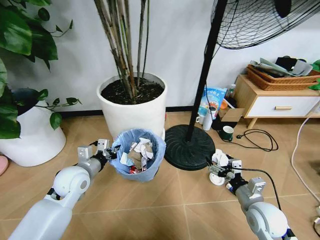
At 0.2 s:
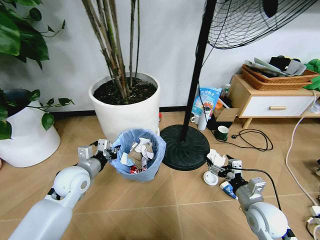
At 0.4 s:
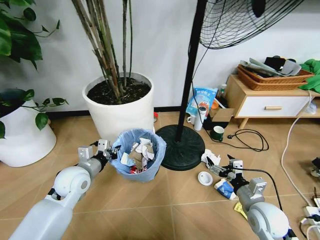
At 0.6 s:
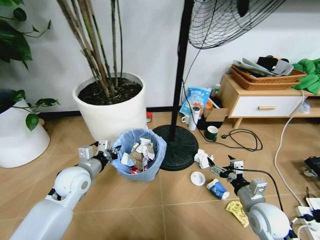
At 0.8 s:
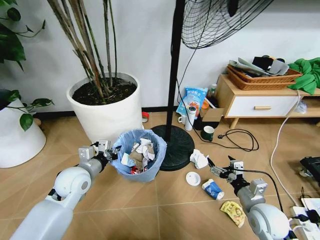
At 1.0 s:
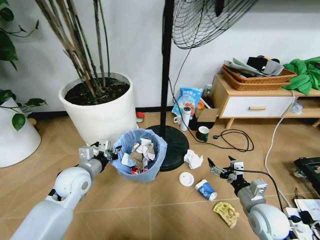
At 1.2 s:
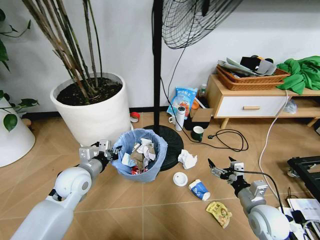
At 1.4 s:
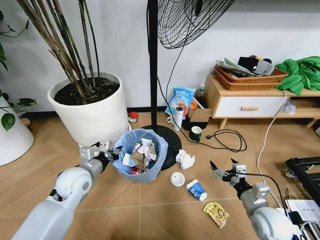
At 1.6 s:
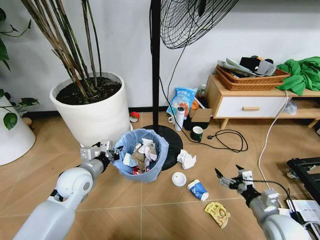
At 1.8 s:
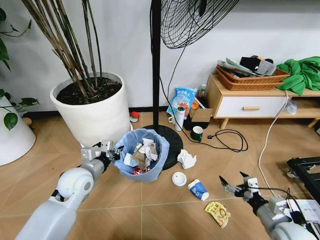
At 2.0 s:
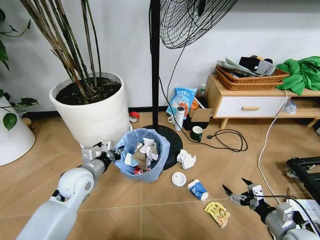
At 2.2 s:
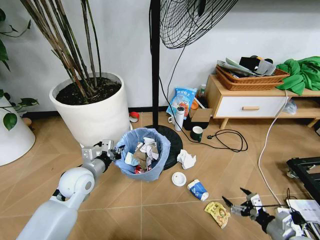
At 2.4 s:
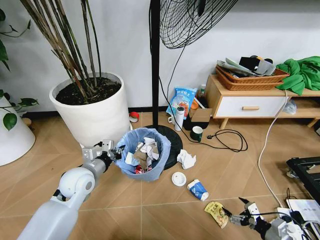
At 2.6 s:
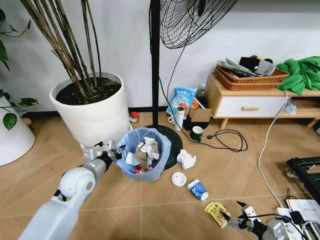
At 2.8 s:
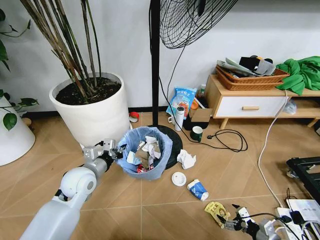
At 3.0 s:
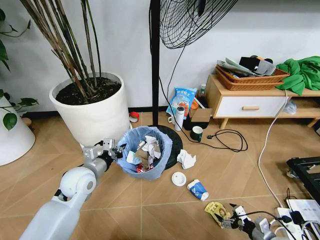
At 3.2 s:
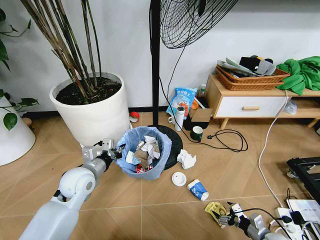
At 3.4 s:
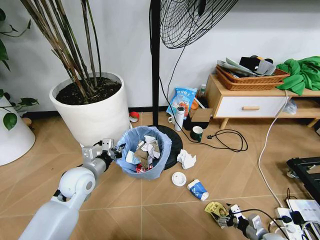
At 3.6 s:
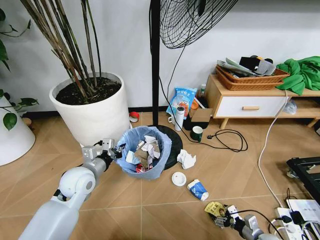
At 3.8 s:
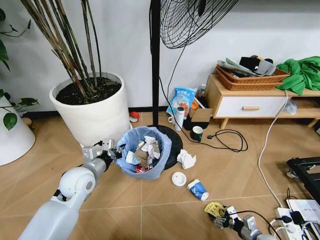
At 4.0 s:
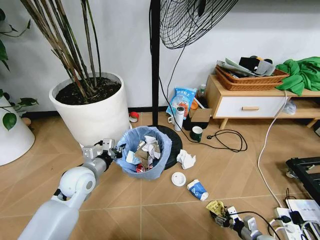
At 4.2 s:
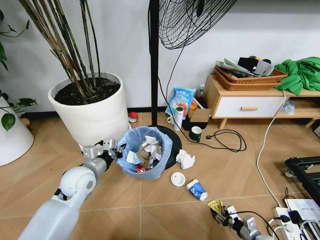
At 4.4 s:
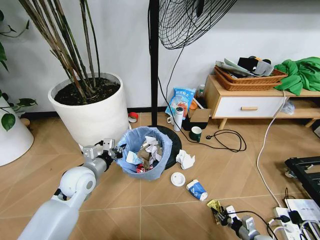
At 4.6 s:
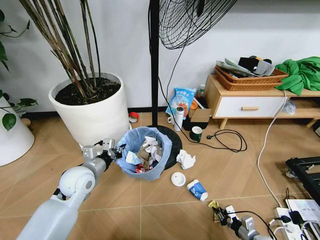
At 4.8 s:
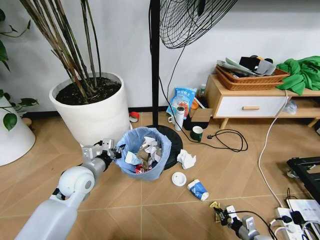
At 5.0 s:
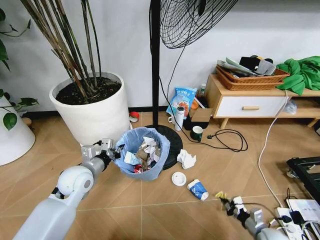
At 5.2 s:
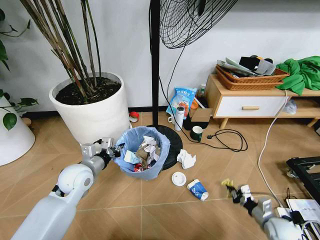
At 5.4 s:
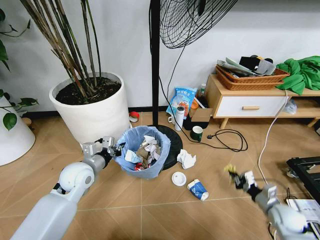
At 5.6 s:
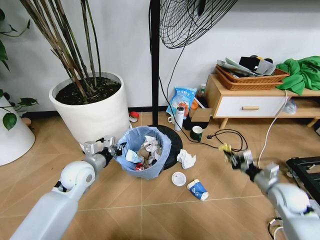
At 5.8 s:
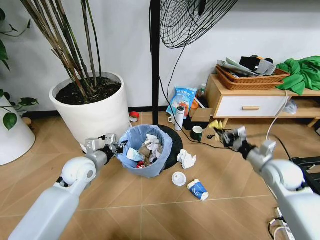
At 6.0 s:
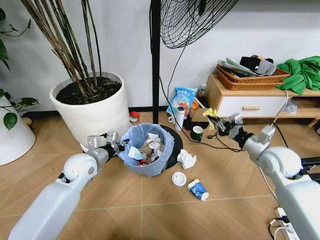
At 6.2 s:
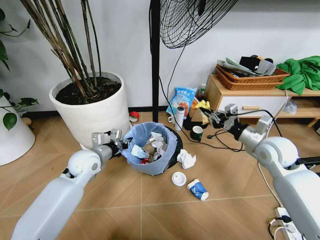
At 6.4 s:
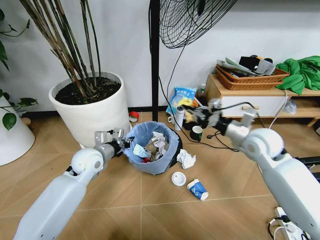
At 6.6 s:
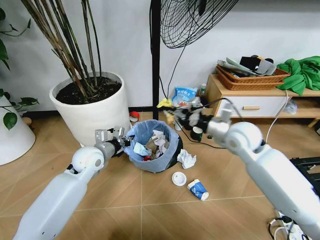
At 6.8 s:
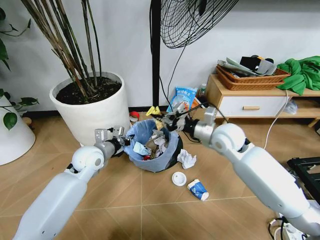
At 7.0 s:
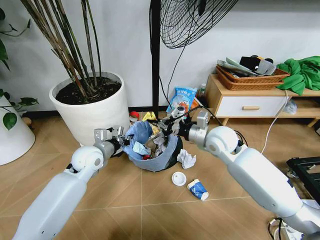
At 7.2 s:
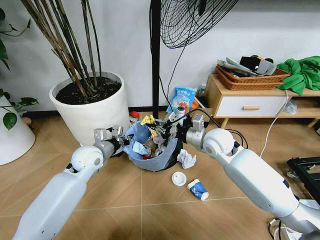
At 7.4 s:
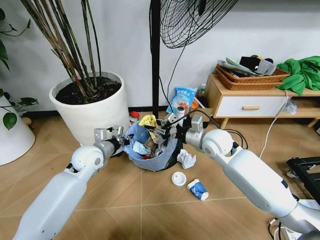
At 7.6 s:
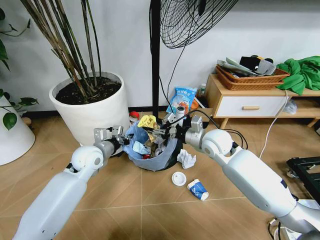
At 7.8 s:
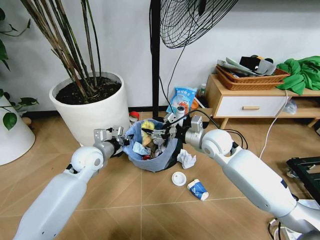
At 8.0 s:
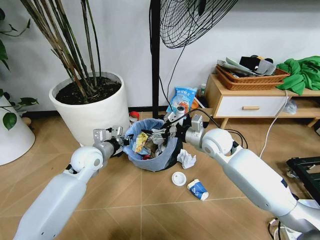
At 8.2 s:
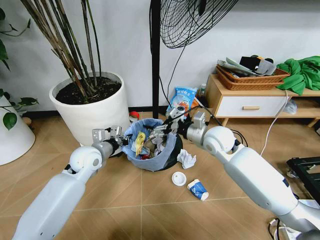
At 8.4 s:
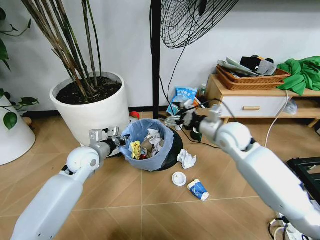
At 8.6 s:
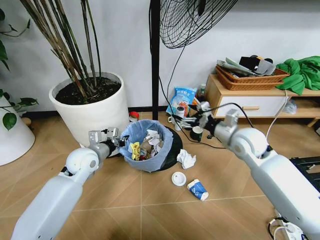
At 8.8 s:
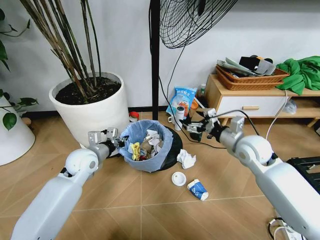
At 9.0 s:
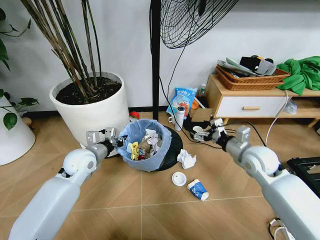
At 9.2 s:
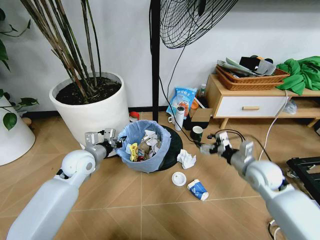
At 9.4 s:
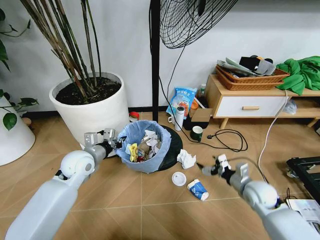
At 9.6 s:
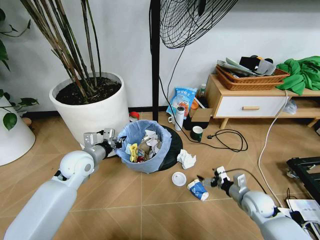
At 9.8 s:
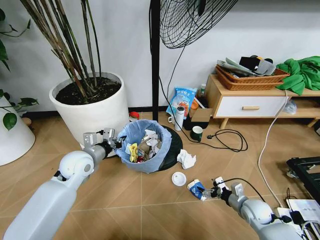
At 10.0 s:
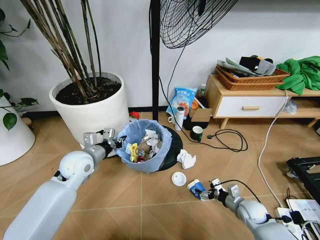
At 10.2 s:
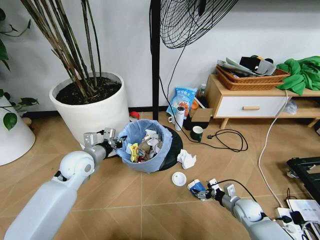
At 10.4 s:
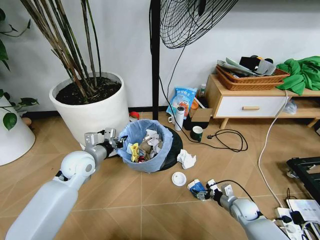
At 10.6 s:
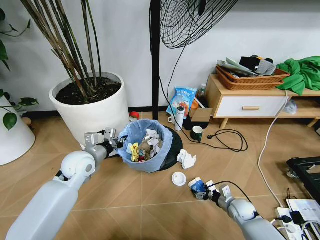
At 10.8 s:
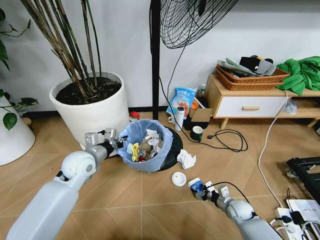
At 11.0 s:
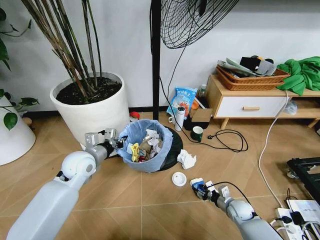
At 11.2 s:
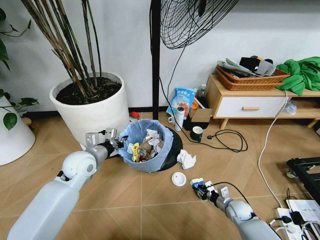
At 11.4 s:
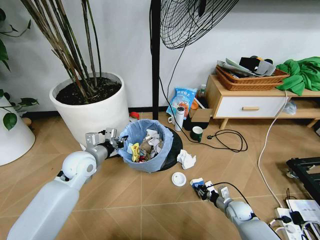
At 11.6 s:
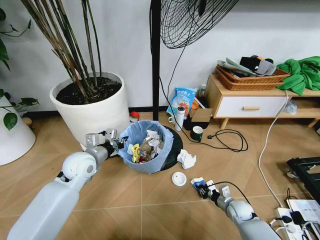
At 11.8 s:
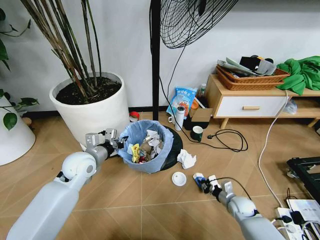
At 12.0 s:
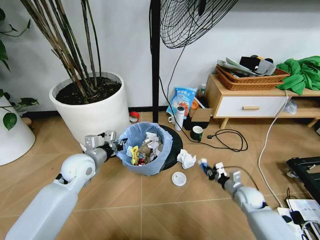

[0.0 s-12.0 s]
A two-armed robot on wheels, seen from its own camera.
Task of the whole recording: Pick up the trash bin and place the garbage on the floor into it.
1.6 to 3.0 s: The right gripper shifts some 15 cm downward and to the right.
3.0 to 4.4 s: The right gripper shifts approximately 5 cm downward, and closes.
4.4 to 6.0 s: The right gripper goes approximately 40 cm upward and forward.
6.0 to 7.6 s: The right gripper is displaced to the left by roughly 20 cm, and opens.
7.6 to 9.0 s: The right gripper travels to the right and backward by some 15 cm, and opens.
9.0 to 10.4 s: The right gripper travels downward by roughly 30 cm.
10.4 to 12.0 s: The right gripper is displaced upward by approximately 5 cm, and closes.

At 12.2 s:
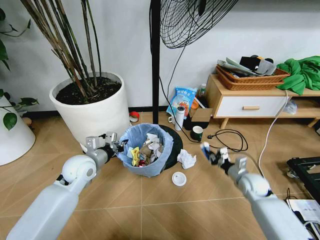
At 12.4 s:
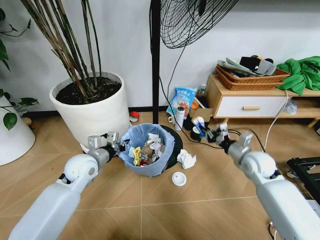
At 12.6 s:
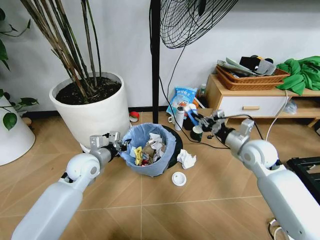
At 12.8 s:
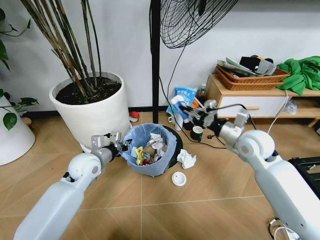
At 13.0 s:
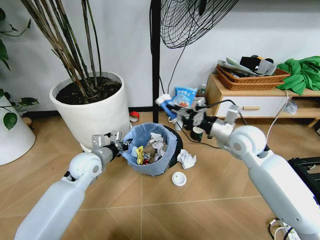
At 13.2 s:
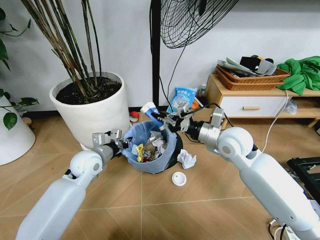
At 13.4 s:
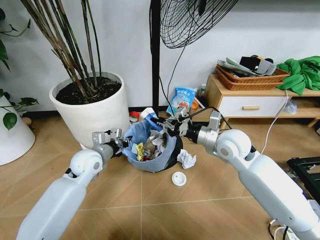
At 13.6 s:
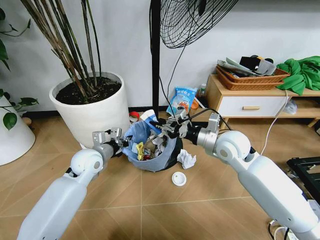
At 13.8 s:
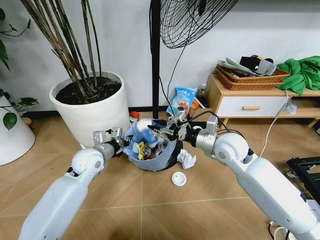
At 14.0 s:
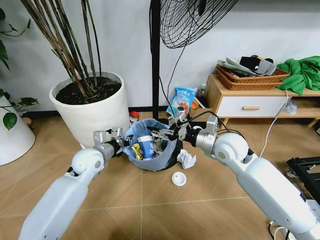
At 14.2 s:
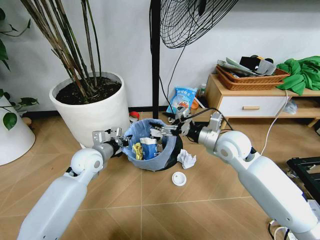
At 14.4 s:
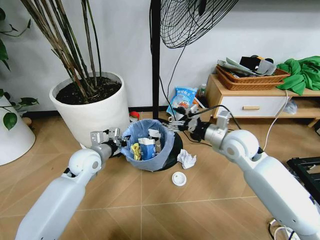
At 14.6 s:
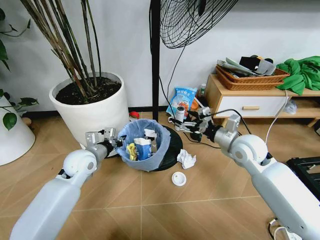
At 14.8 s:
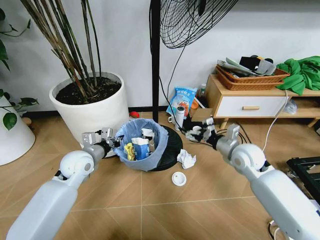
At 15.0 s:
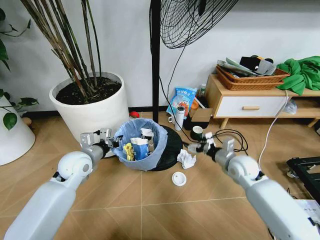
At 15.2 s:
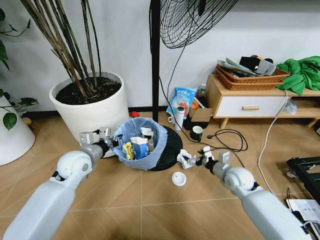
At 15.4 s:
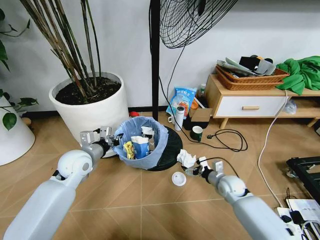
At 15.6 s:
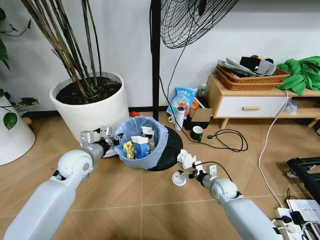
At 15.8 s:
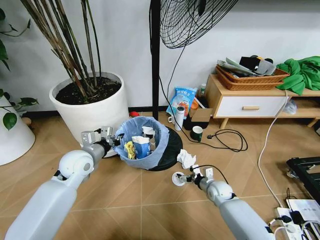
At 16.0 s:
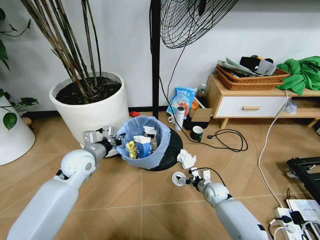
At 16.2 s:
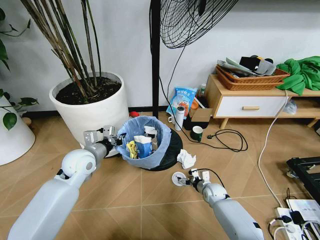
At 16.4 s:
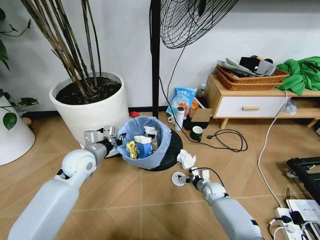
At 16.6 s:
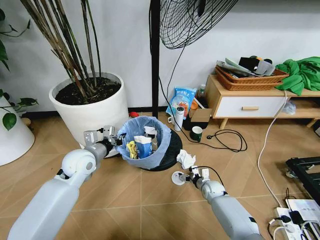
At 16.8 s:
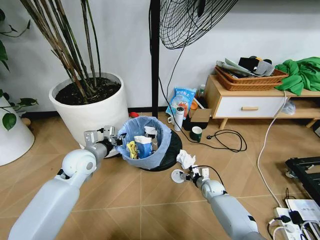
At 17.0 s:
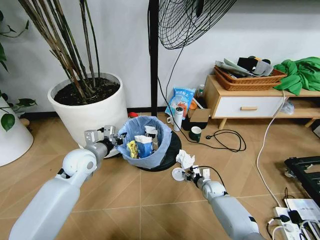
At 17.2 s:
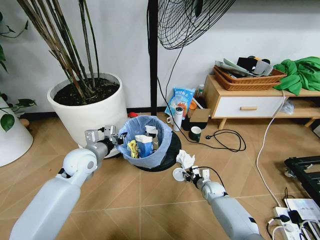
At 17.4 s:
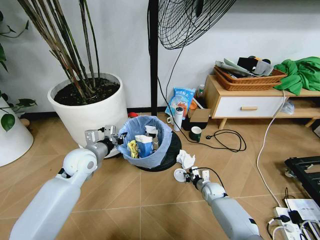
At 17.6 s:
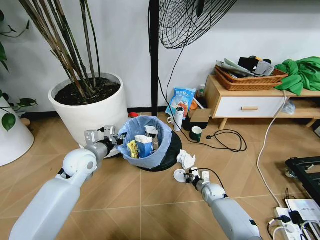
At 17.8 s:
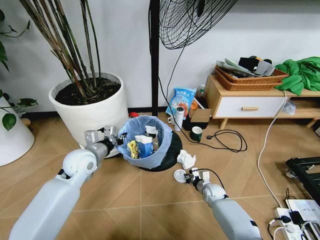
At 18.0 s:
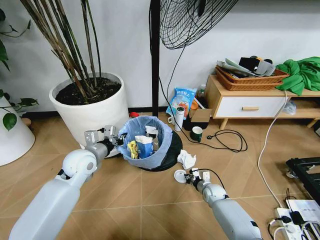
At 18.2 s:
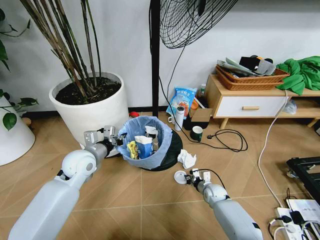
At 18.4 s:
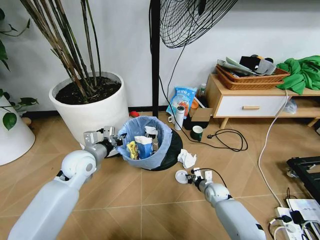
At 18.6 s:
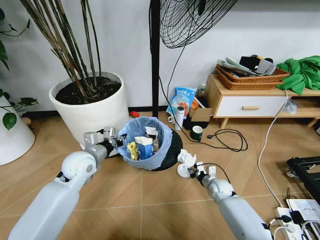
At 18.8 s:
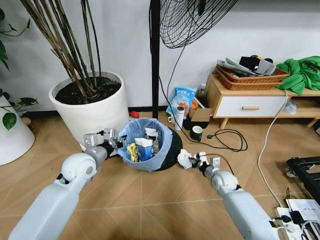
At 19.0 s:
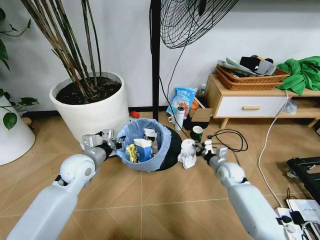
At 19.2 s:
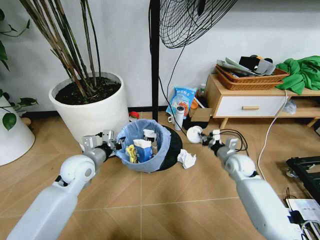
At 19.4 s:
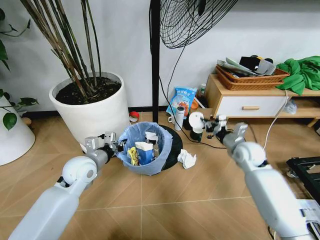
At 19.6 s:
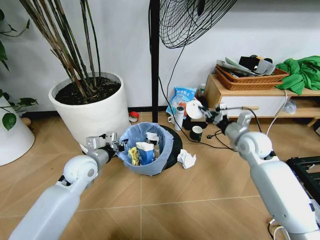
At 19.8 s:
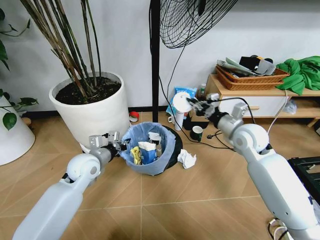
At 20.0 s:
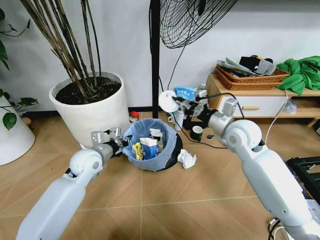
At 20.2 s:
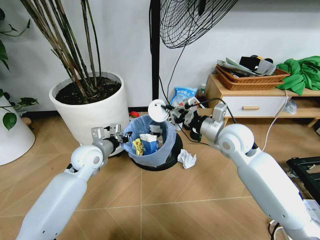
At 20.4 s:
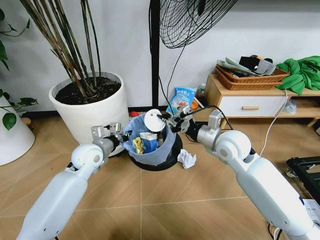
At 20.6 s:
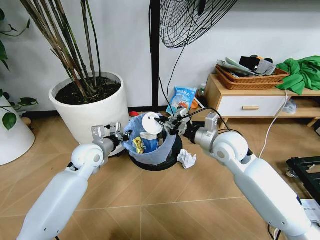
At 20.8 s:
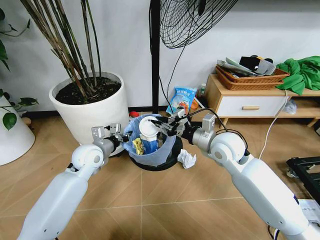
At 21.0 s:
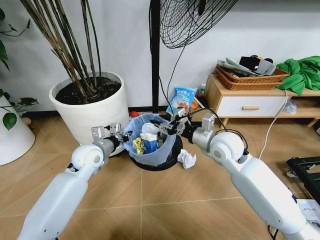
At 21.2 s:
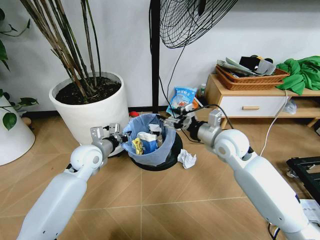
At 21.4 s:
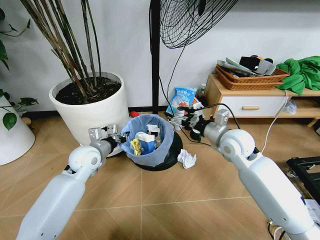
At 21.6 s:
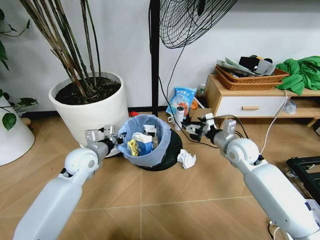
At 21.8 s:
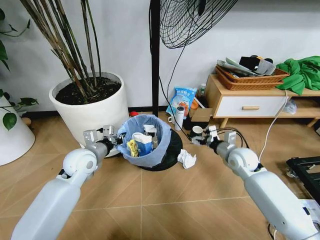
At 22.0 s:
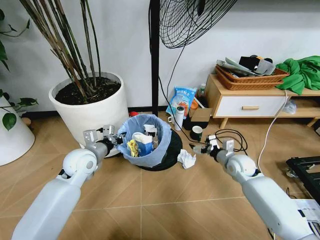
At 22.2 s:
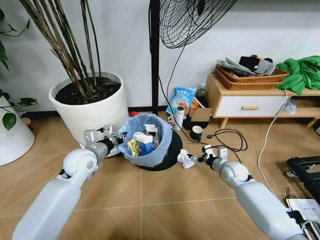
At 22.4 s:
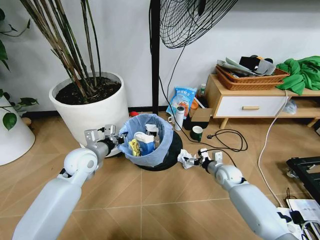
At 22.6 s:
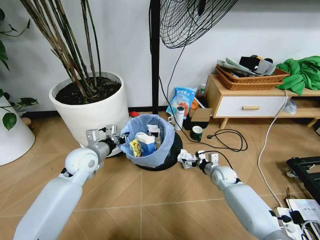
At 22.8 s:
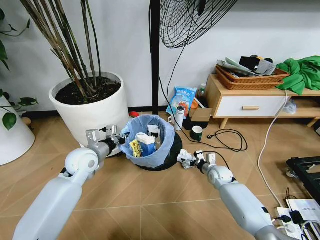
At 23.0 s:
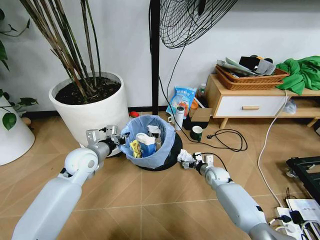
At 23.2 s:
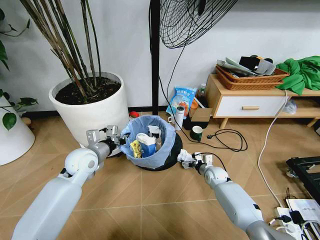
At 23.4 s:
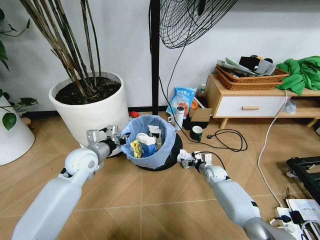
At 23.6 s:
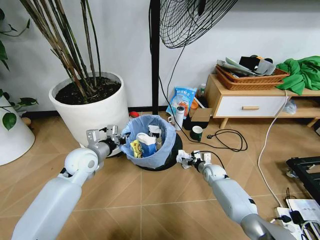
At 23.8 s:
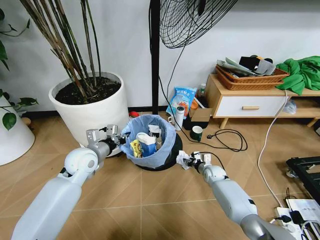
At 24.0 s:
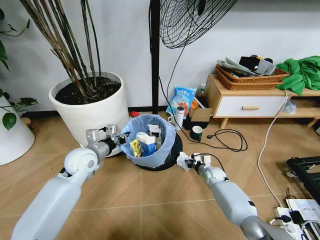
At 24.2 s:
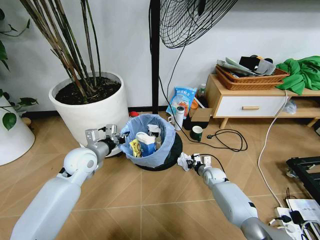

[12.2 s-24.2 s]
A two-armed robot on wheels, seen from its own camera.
Task of the whole recording: Pick up the trash bin and place the garbage on the floor into it.
12.2 to 13.8 s: The right gripper goes about 25 cm upward and to the left, and opens.
13.8 to 15.2 s: The right gripper shifts some 20 cm downward and to the right, and opens its fingers.
15.2 to 16.6 s: The right gripper travels downward by roughly 15 cm.
16.6 to 18.2 s: The right gripper closes its fingers.
18.2 to 19.8 s: The right gripper is displaced upward by approximately 35 cm.
19.8 to 21.2 s: The right gripper goes roughly 5 cm to the left, and opens up.
21.2 to 22.6 s: The right gripper moves downward, approximately 25 cm.
22.6 to 24.2 s: The right gripper shifts about 5 cm downward, and closes its fingers.
